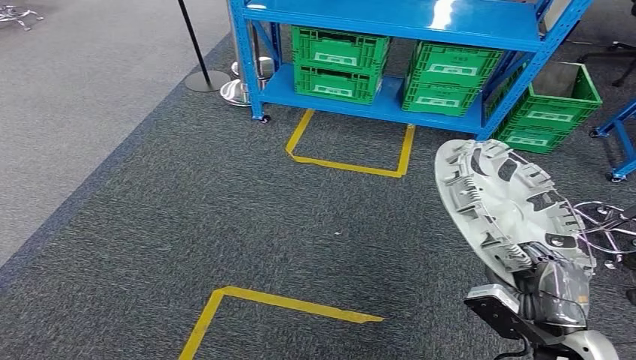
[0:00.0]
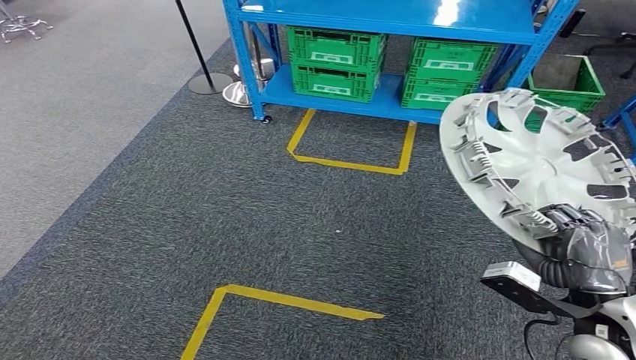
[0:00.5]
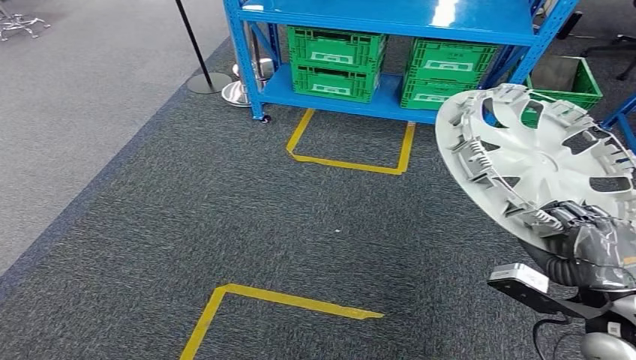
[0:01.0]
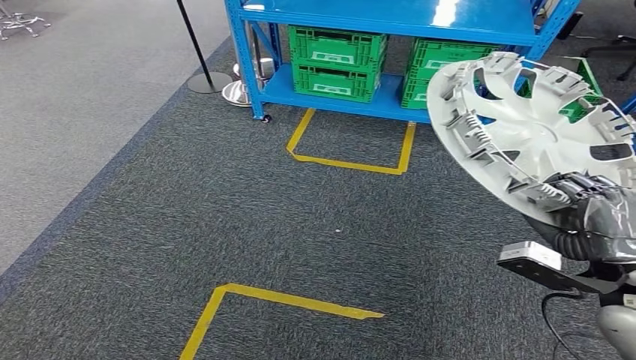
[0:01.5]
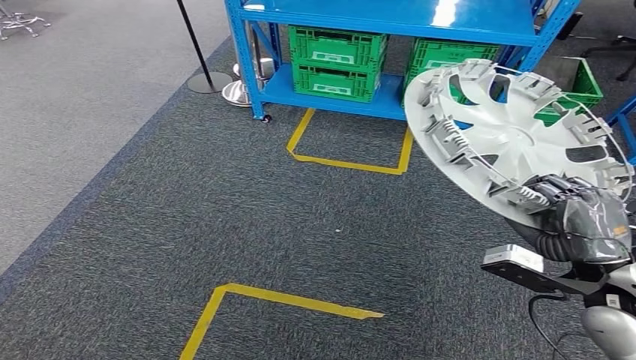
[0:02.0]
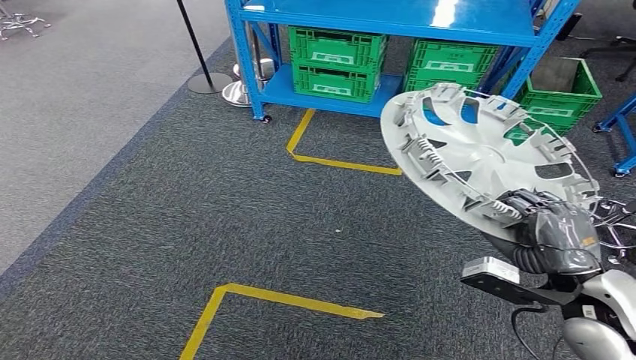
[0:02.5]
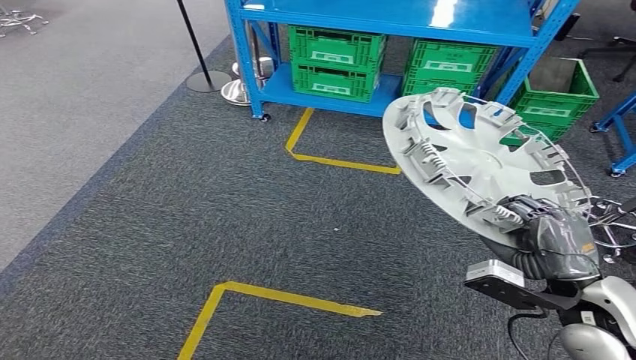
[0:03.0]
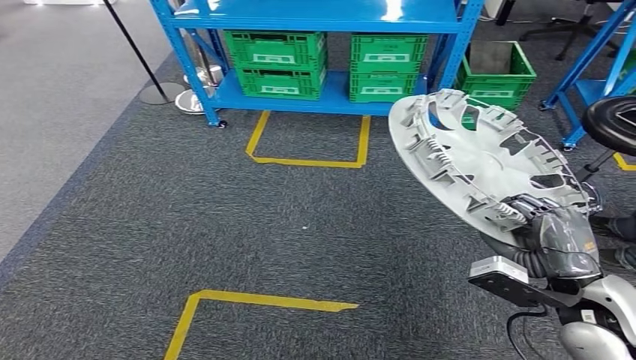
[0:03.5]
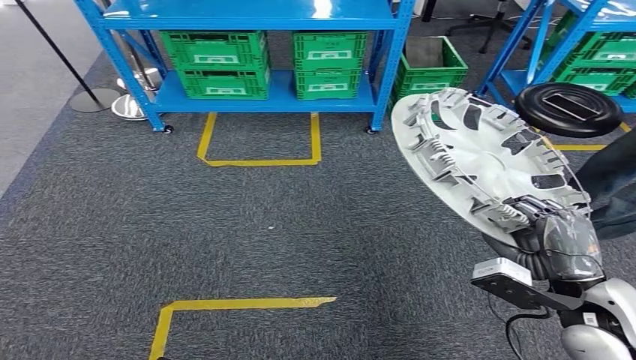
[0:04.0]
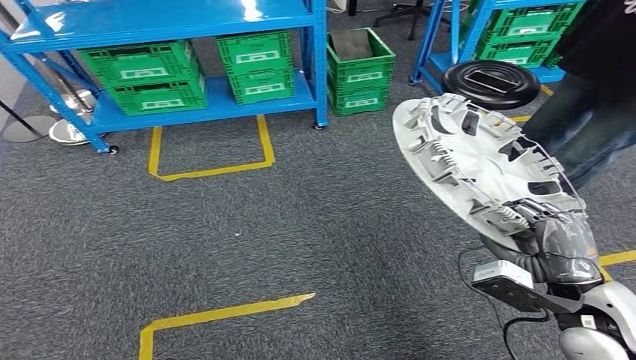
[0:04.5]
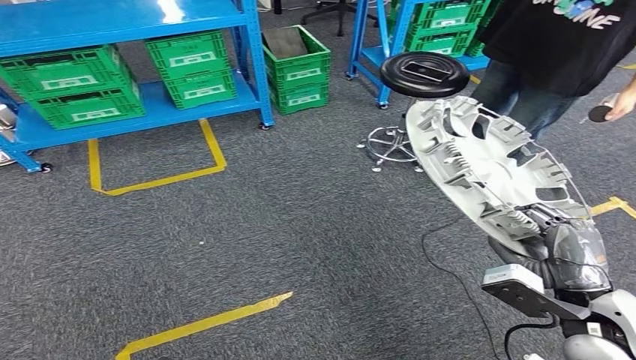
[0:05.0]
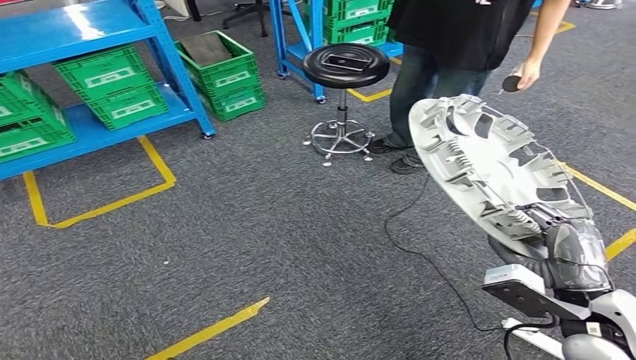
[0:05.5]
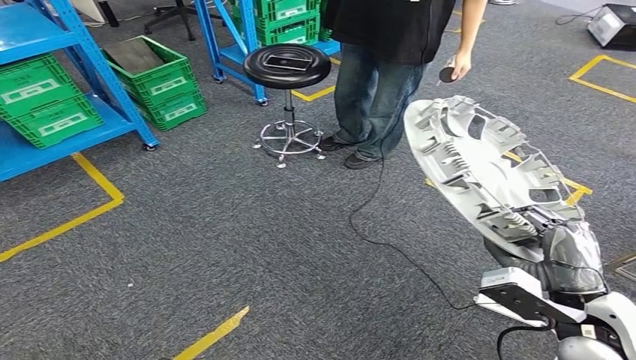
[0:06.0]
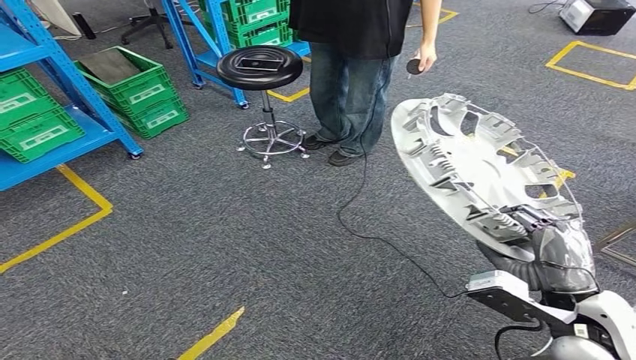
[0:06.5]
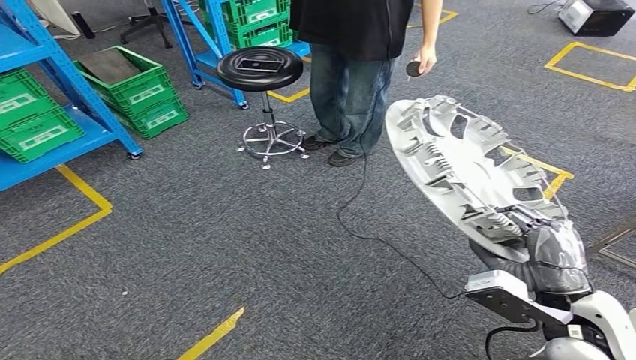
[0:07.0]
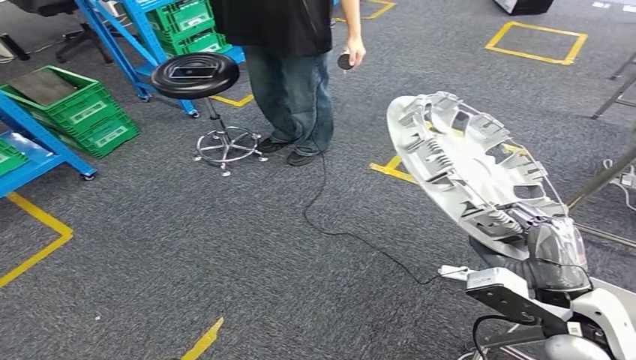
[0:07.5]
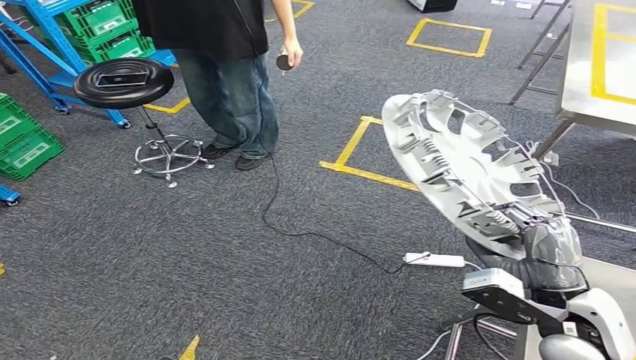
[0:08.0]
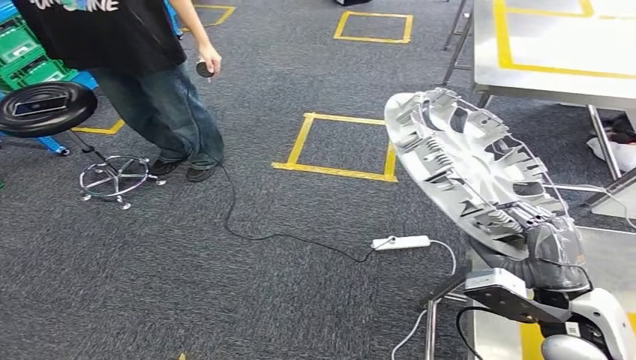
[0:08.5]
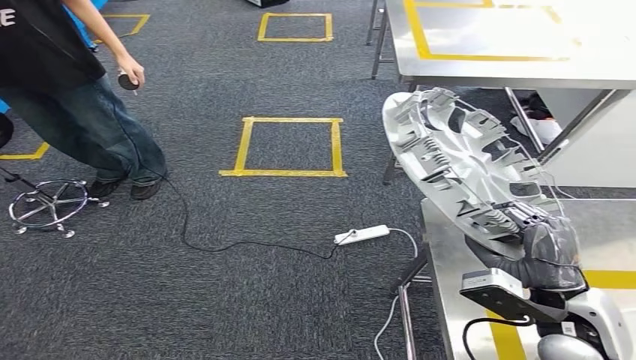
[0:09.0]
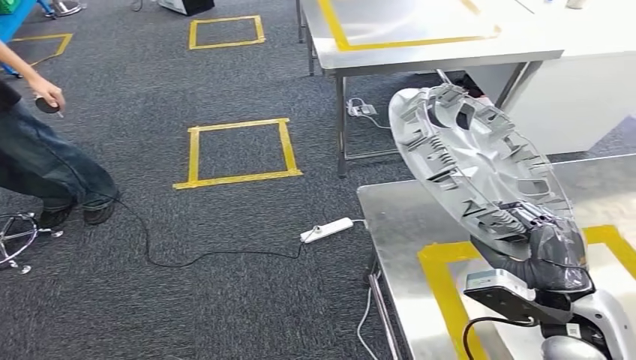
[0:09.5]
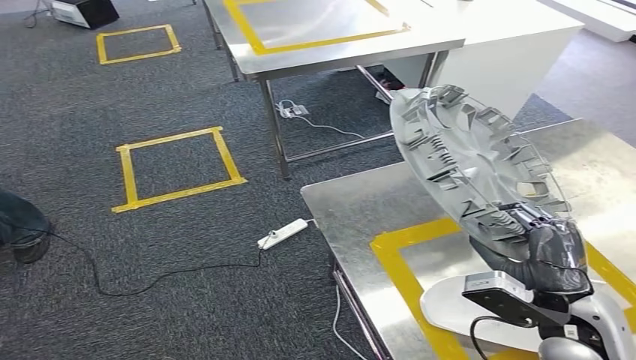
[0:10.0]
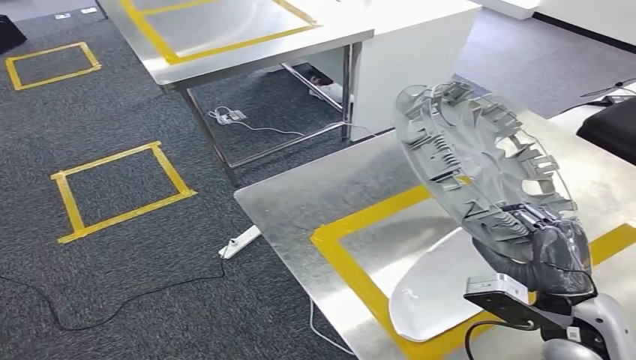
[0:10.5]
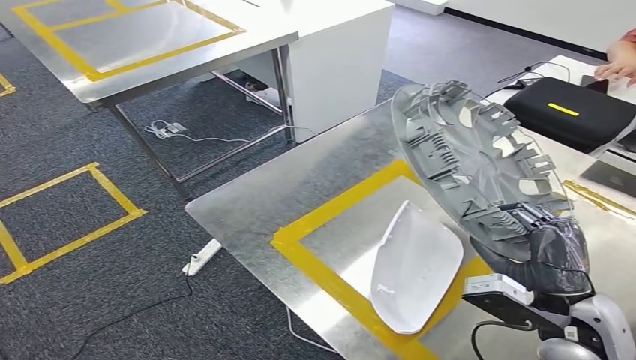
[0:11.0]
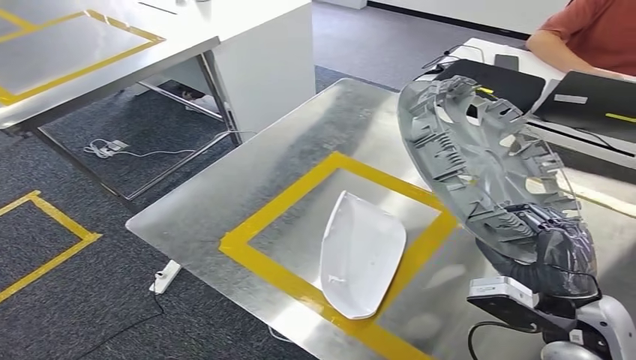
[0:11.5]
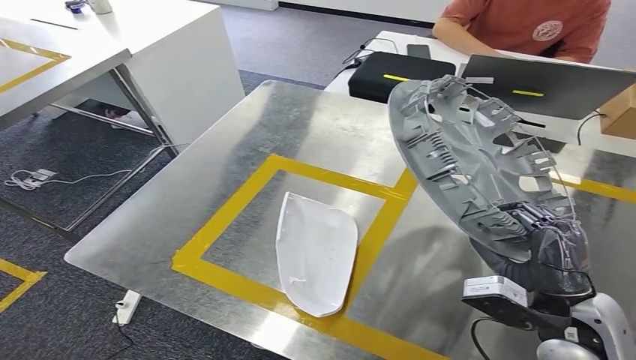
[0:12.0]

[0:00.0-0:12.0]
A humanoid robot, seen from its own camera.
Step, 0:00.0 to 0:11.5: Move the small parts to the workbench.

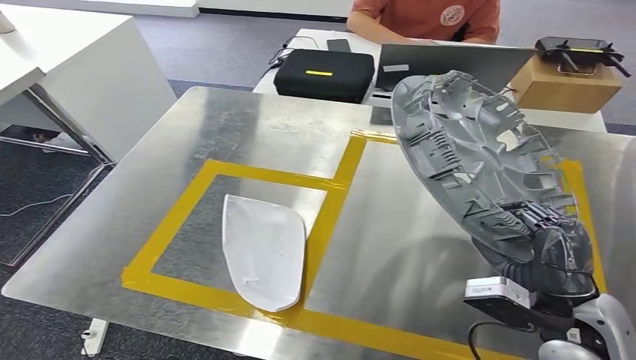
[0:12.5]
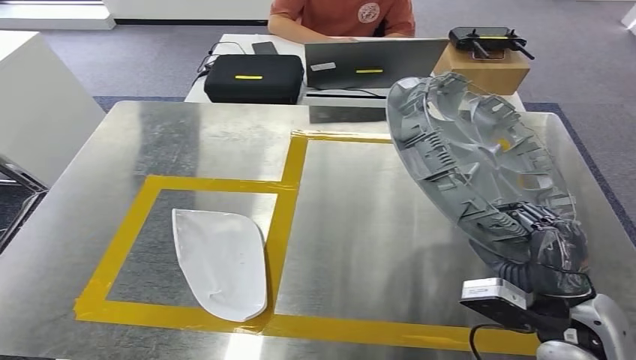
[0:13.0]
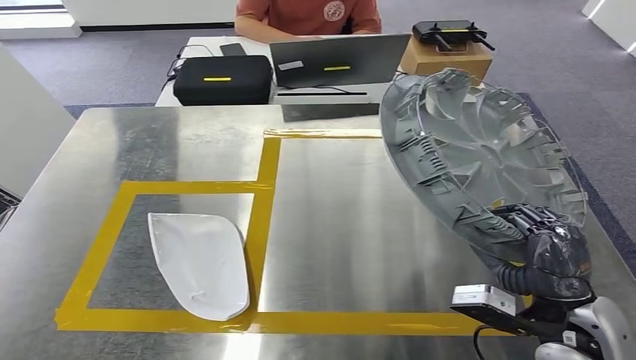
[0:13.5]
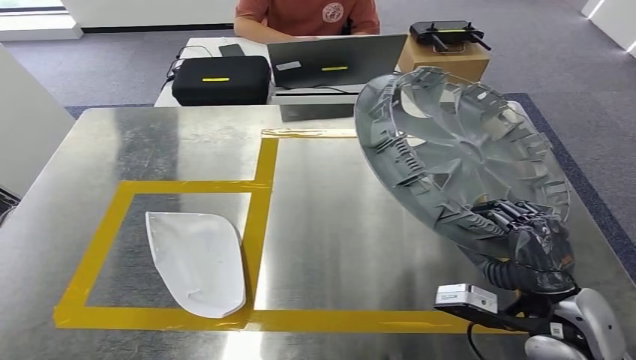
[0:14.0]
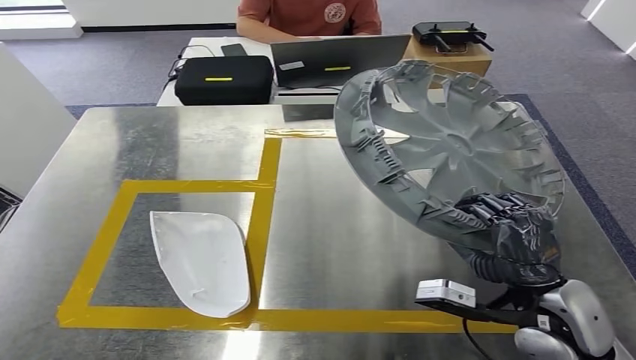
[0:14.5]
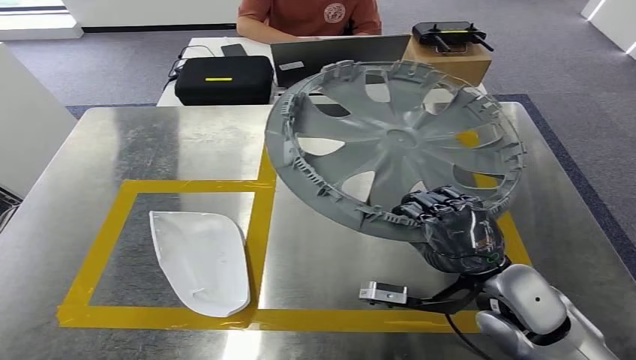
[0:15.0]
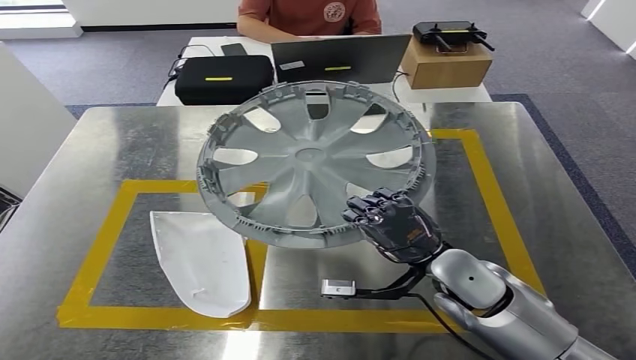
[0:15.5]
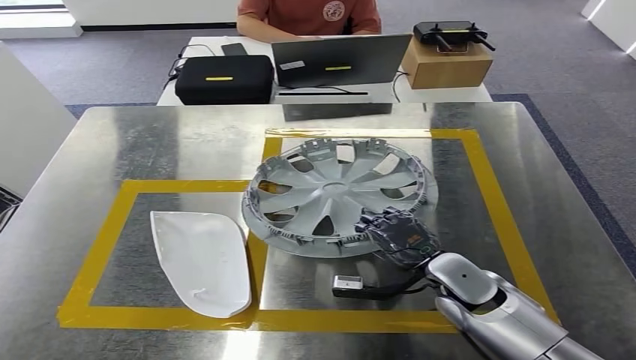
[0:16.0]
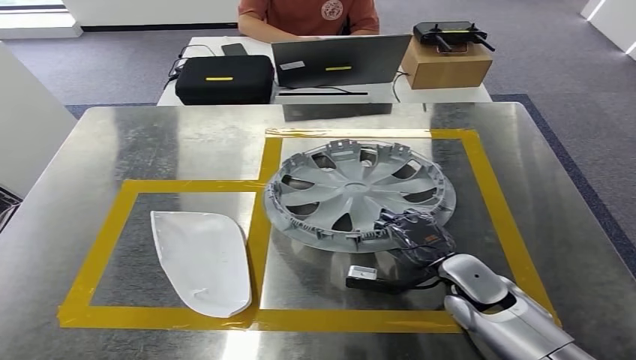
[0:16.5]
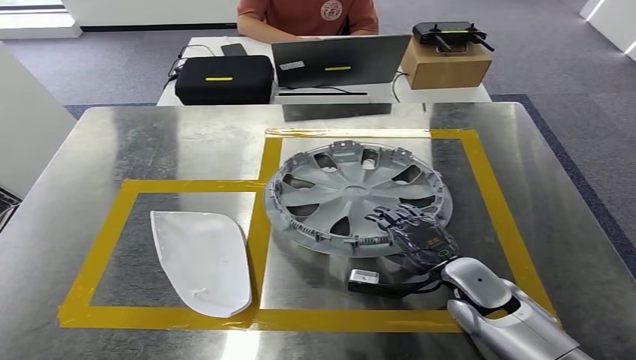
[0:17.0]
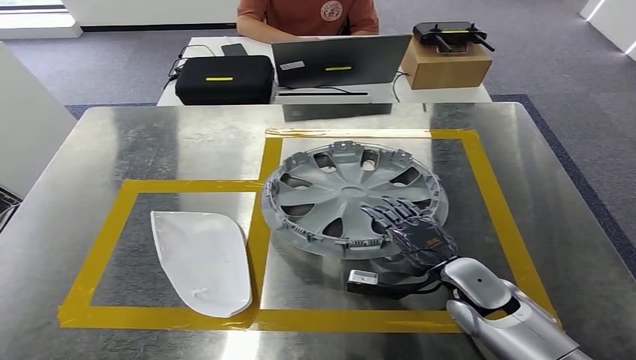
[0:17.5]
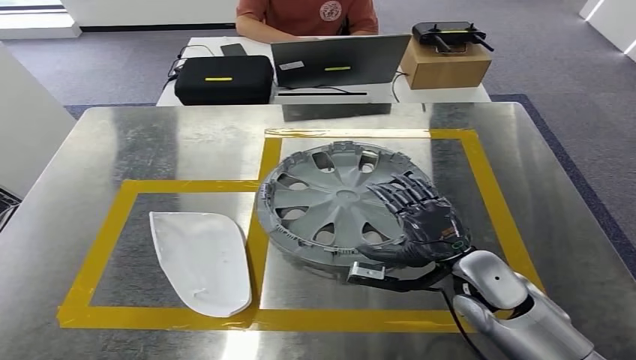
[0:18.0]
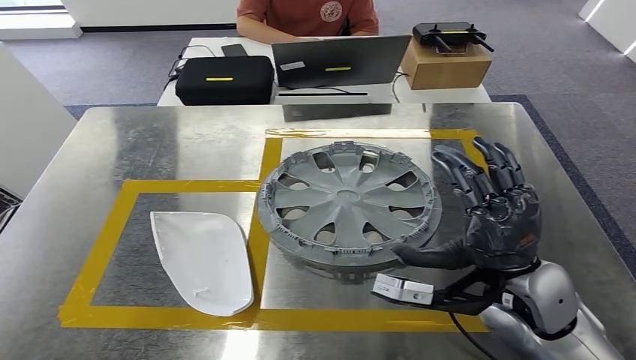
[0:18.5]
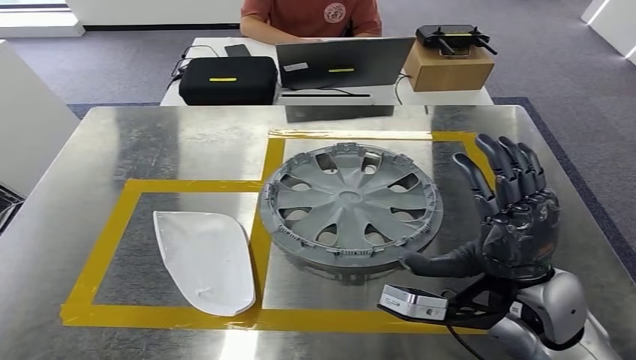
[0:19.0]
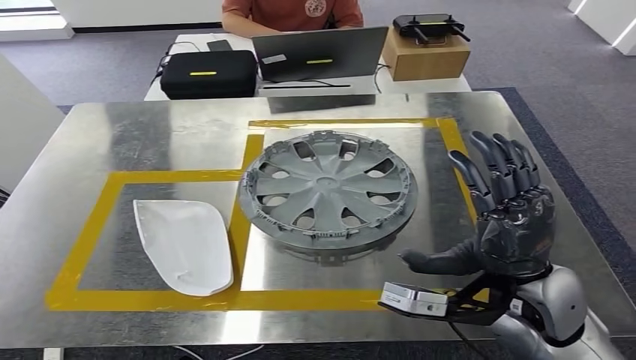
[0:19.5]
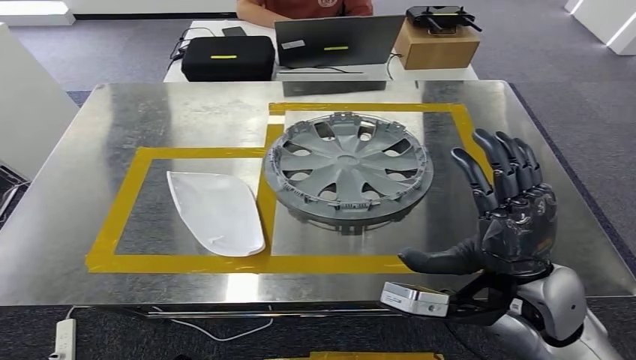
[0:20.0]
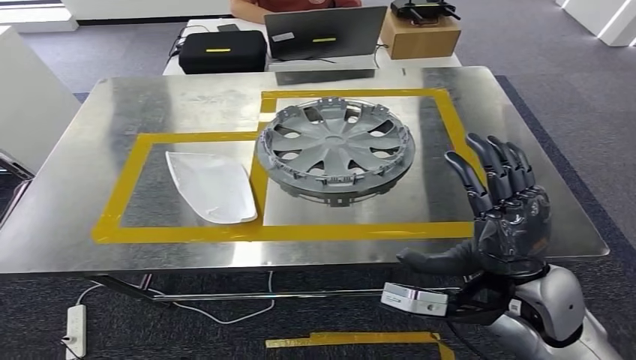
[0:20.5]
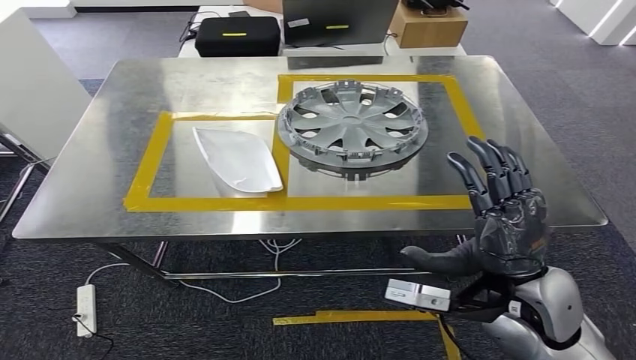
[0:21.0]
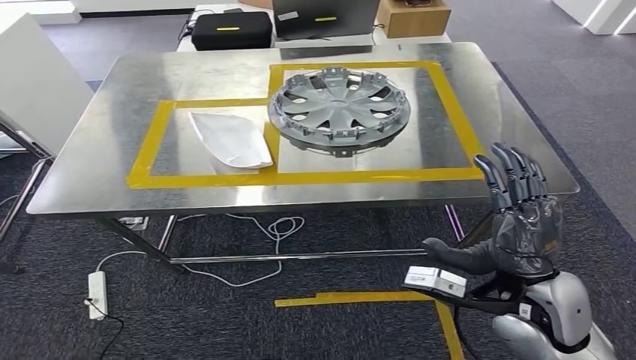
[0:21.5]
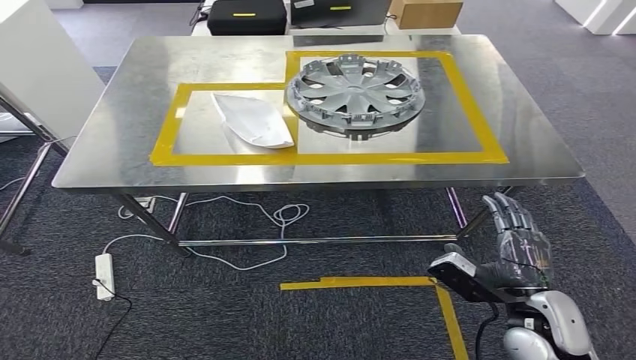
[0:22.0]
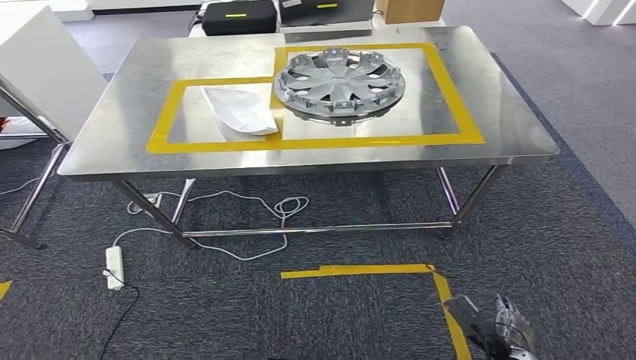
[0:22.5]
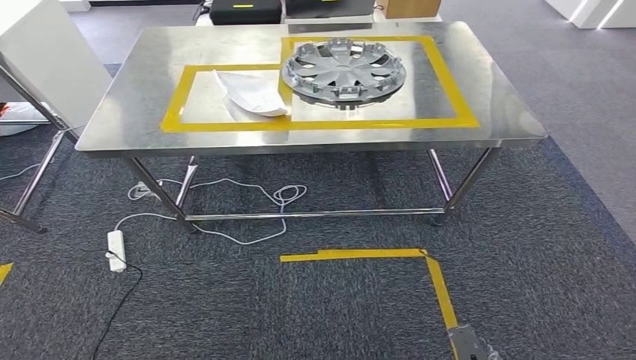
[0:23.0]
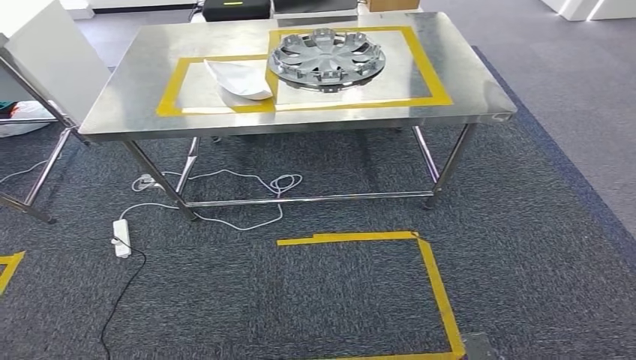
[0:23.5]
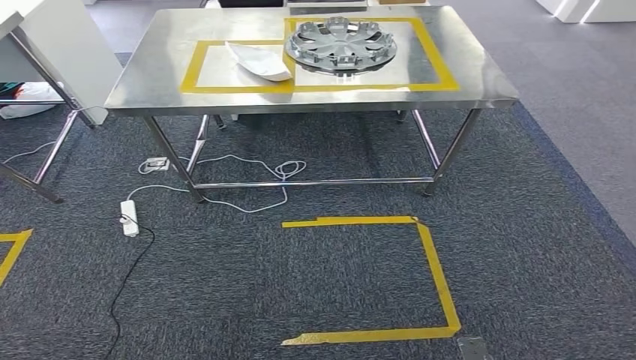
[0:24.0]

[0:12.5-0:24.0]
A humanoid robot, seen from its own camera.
0:16.5 to 0:18.5: The right hand goes roughly 15 cm upward.
